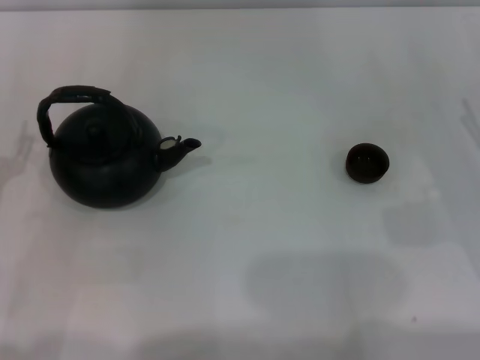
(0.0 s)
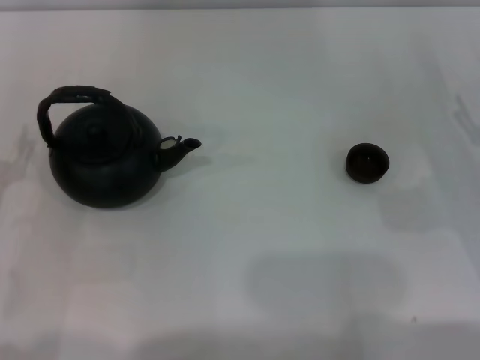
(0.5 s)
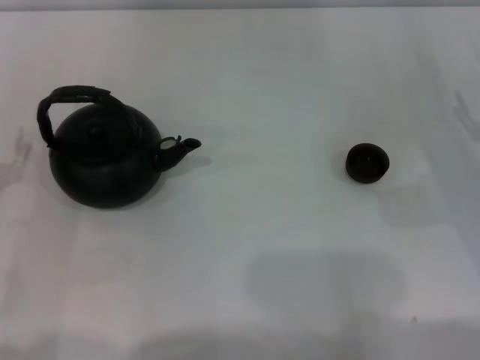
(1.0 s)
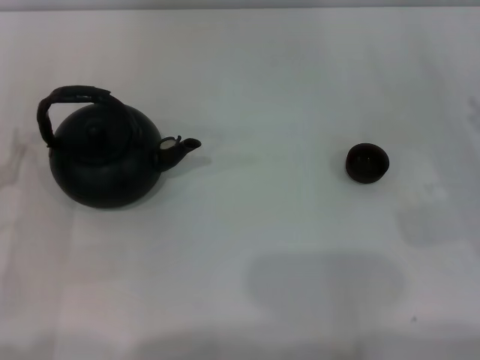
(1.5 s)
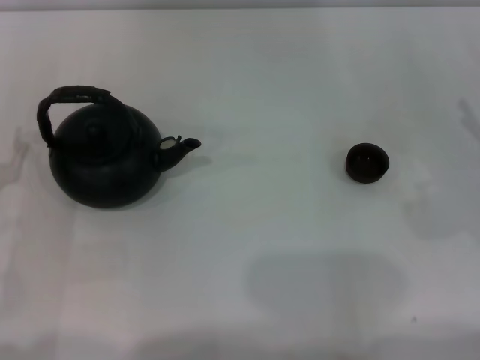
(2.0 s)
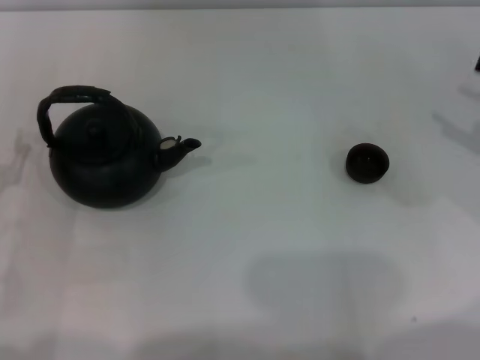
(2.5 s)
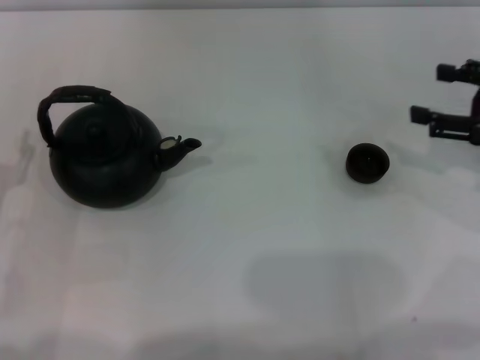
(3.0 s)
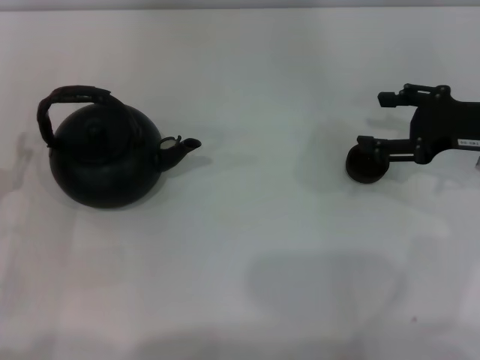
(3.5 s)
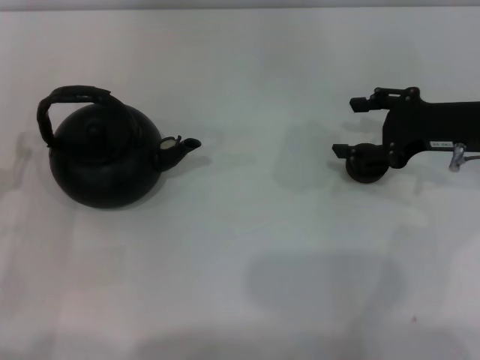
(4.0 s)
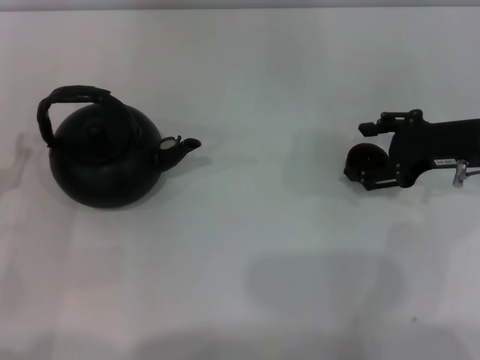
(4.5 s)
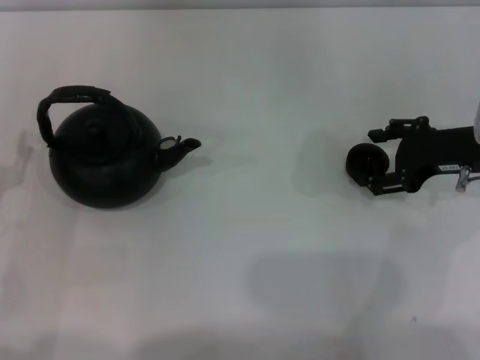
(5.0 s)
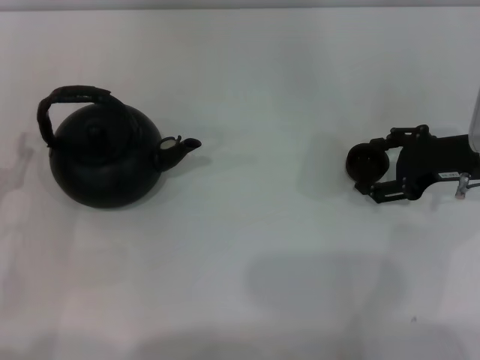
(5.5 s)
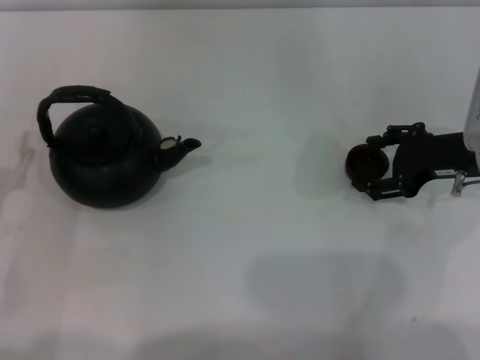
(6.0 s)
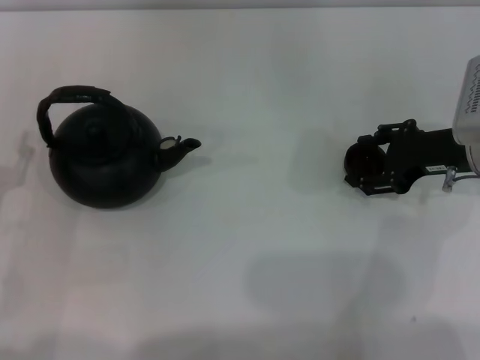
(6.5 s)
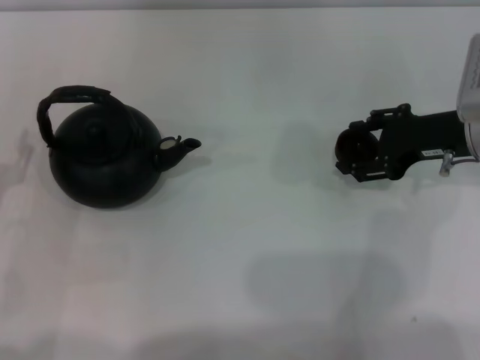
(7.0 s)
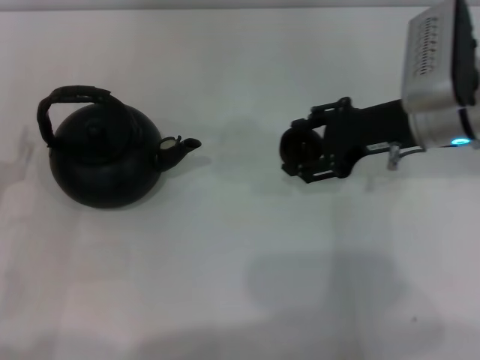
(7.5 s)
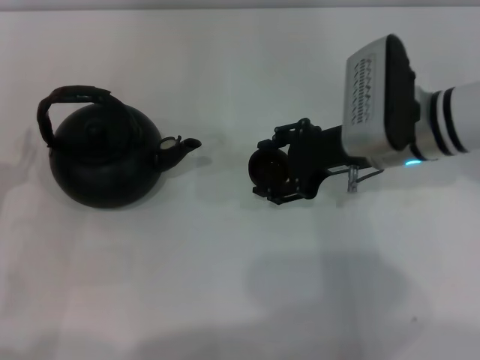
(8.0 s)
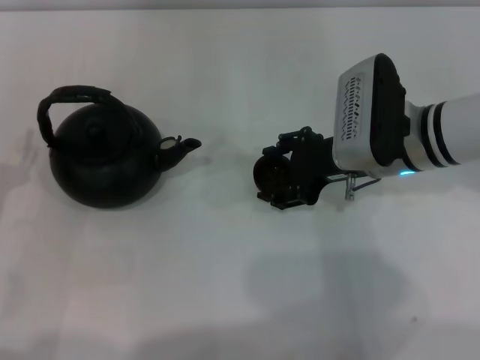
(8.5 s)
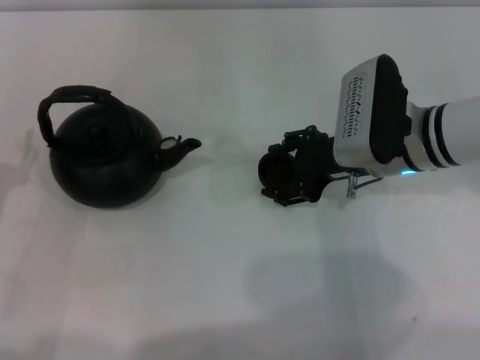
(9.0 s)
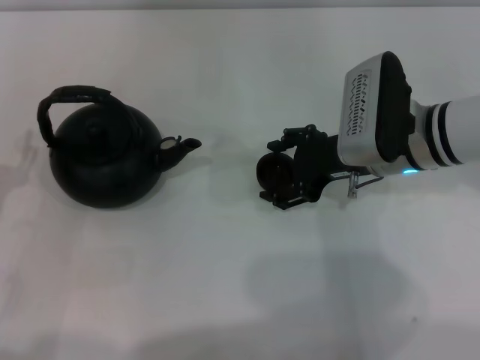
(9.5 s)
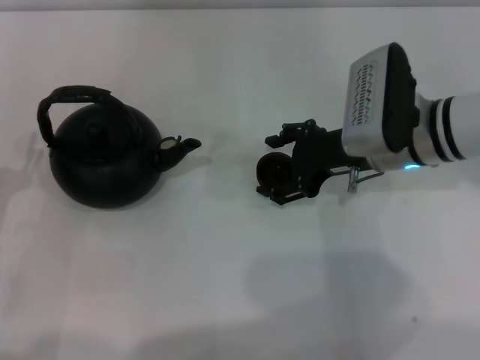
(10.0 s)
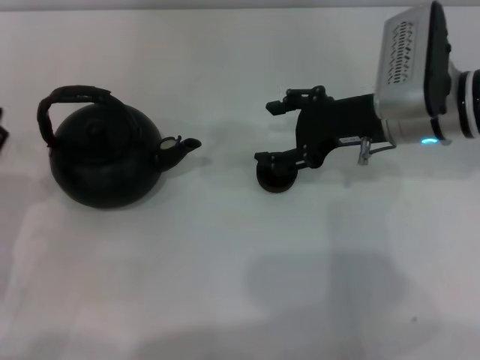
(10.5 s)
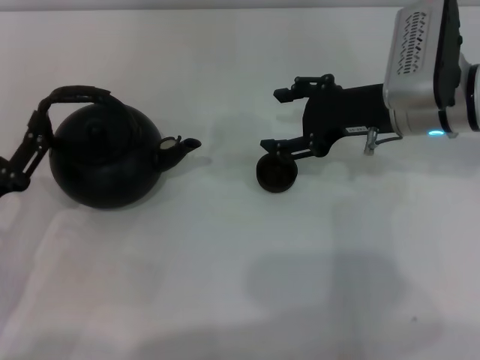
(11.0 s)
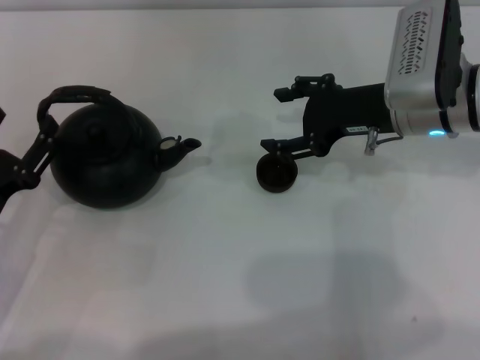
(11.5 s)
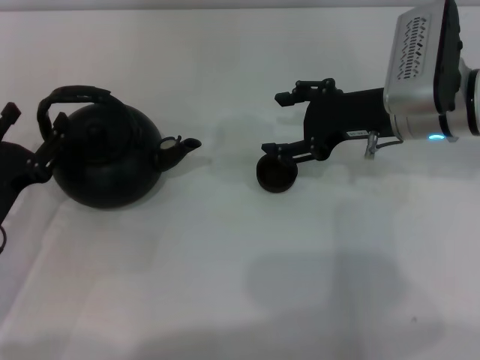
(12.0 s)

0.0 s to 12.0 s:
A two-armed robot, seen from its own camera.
Task of the whole recording: Grasp the handle of the teapot with one hand and pour tea into the teacup.
Step, 0.0 to 7.0 s: Pick up the teacup with the right gripper.
Step, 7.5 to 11.0 s: Place the teacup in the center of view with the right gripper.
2.0 to 4.0 s: The right gripper travels to the left and forward by roughly 10 cm.
4.0 to 6.0 s: The grippers move only a little.
6.0 to 8.0 s: The right gripper moves to the left, approximately 10 cm, and closes up.
8.0 to 10.0 s: The right gripper opens its fingers.
10.0 to 12.0 s: The grippers move only a little.

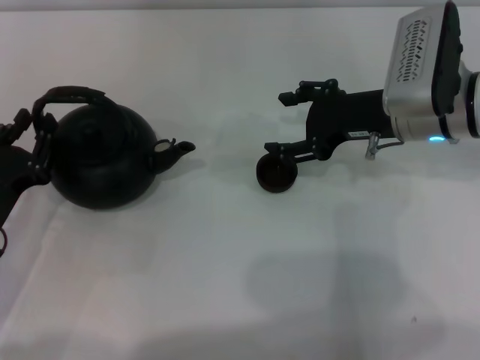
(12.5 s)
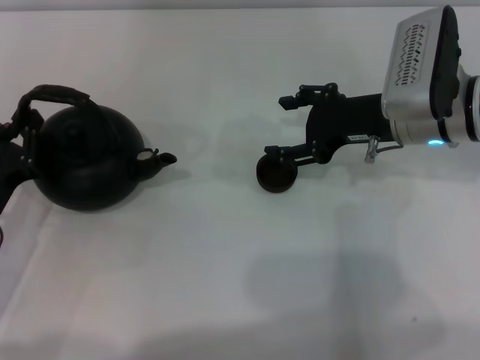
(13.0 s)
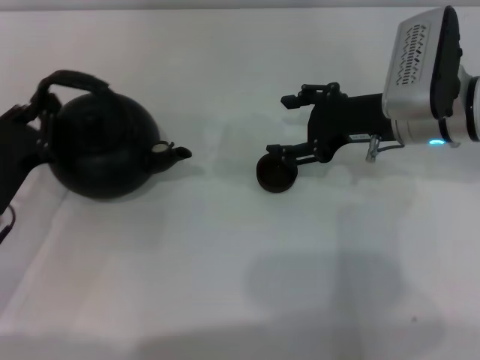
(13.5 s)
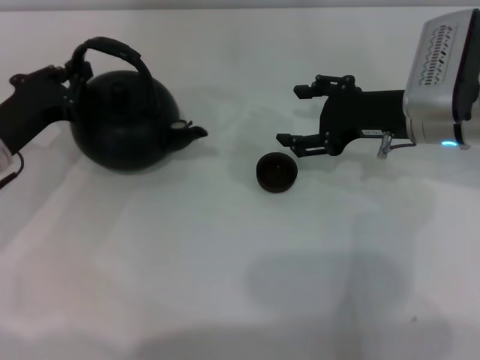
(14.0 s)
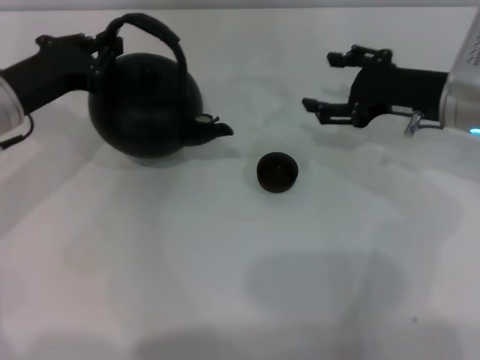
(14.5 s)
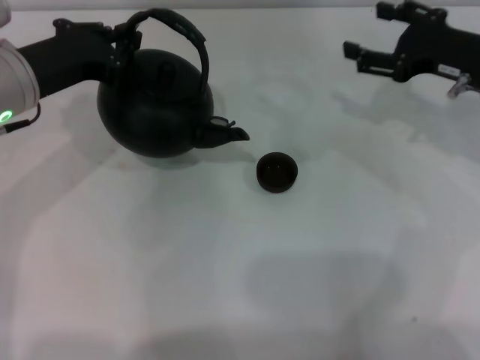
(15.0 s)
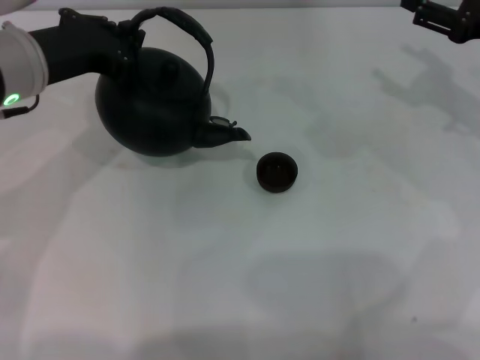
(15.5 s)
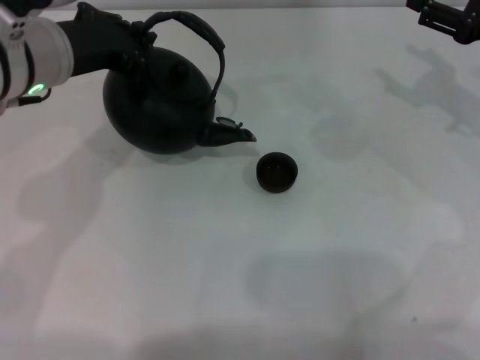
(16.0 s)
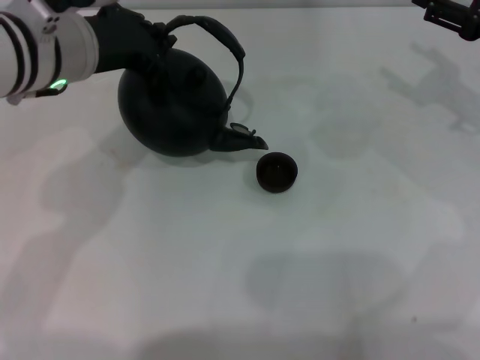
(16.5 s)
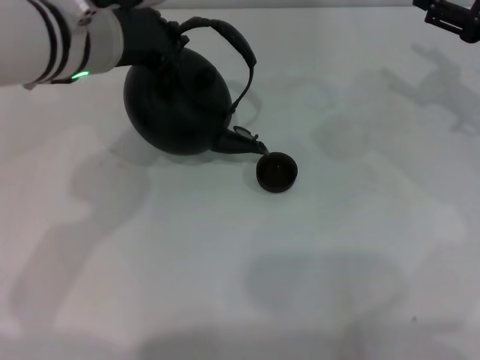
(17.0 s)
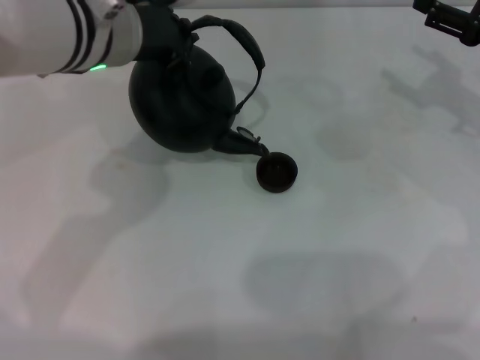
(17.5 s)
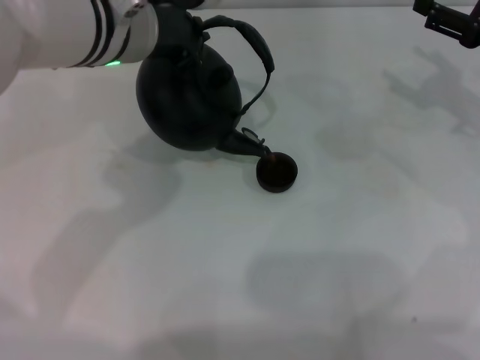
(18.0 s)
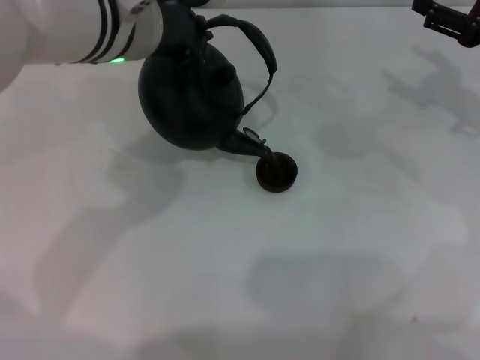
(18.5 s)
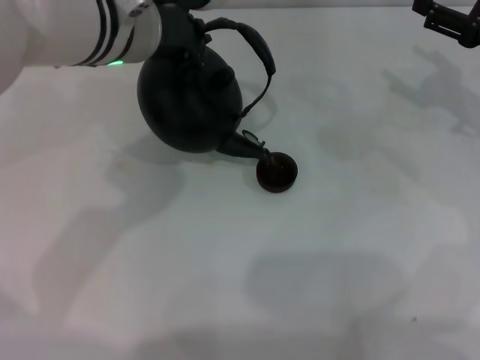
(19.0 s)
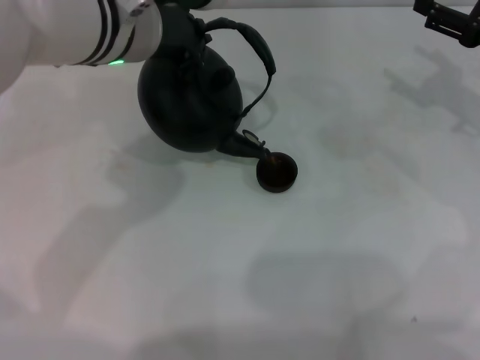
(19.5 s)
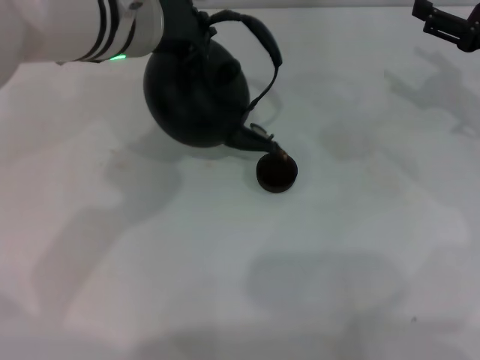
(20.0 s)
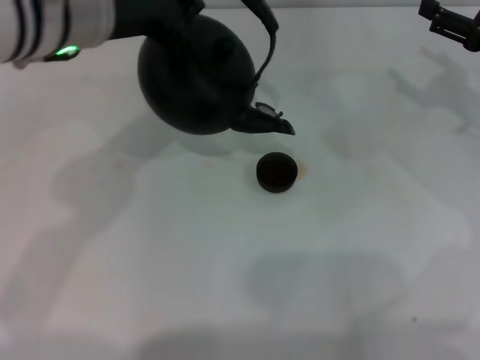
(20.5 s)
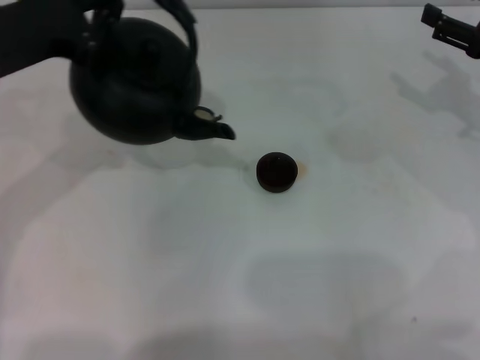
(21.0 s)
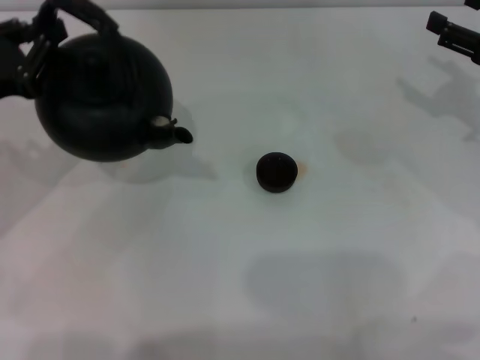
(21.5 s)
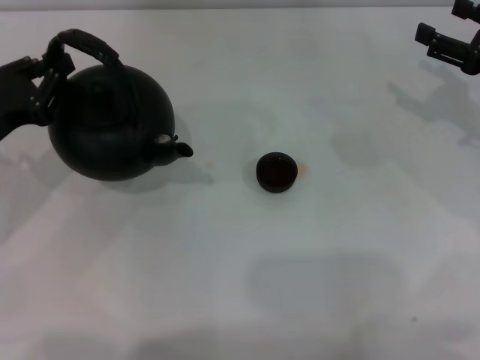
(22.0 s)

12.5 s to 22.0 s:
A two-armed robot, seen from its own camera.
Task of the whole recording: Grasp the handle of the teapot with one hand and pour tea into the teacup.
Step, 14.5 to 20.0 s: Pour tea into the teacup with the left gripper.
12.5 to 14.5 s: The left gripper shifts approximately 15 cm forward and upward, and closes.
14.5 to 16.5 s: The left gripper is displaced to the right and upward by some 15 cm, while the right gripper shifts about 10 cm to the right.
16.5 to 18.0 s: The left gripper is displaced to the right by about 5 cm.
18.0 to 20.0 s: The two grippers keep their place.
20.0 to 22.0 s: The left gripper shifts about 25 cm to the left and downward.

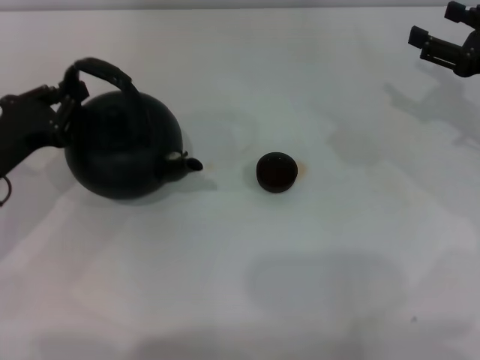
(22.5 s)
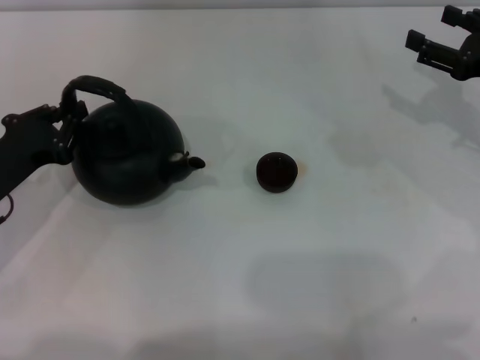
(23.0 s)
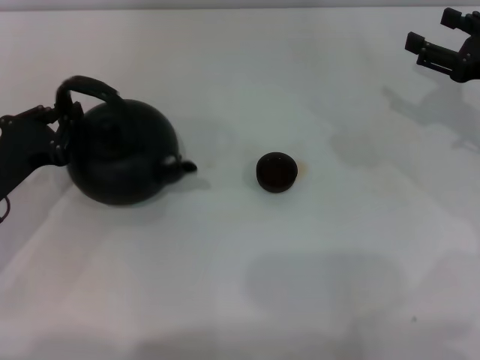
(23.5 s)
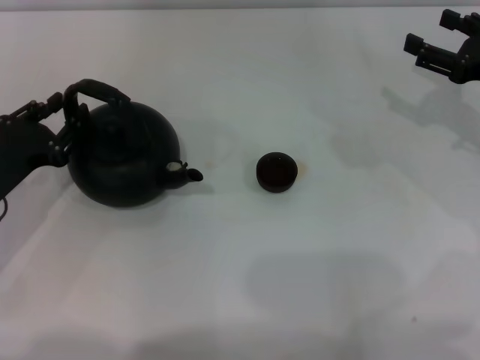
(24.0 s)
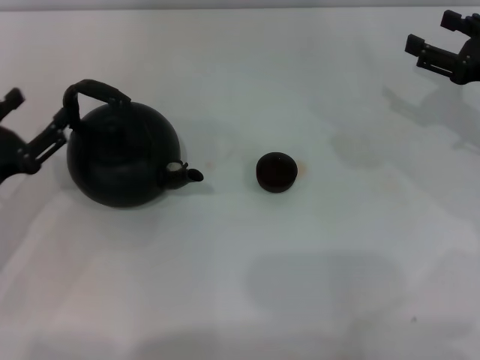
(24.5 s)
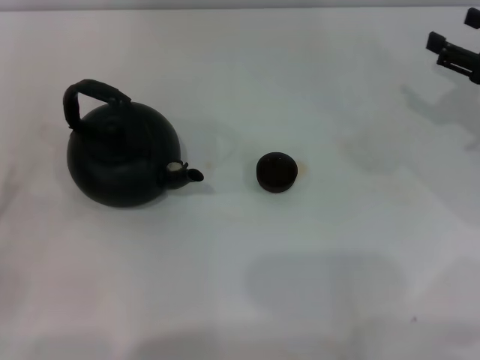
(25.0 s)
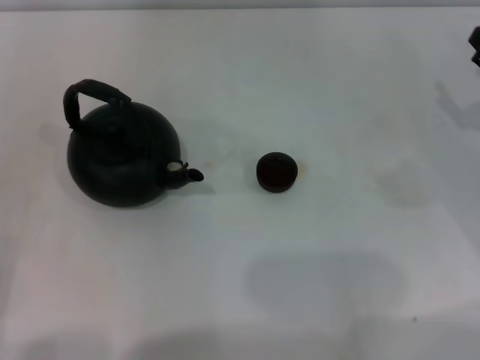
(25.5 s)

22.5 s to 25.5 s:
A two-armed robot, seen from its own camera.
Task of the whole recording: Grasp the handle of the teapot with one hand and pour tea into the teacup.
Step, 22.5 to 24.5 s: Put down the teapot with the left gripper.
22.5 to 24.0 s: The grippers move only a little.
24.0 to 25.5 s: The right gripper moves roughly 5 cm. Meanwhile the left gripper heads backward and to the left, covering approximately 20 cm, and opens its fingers.
